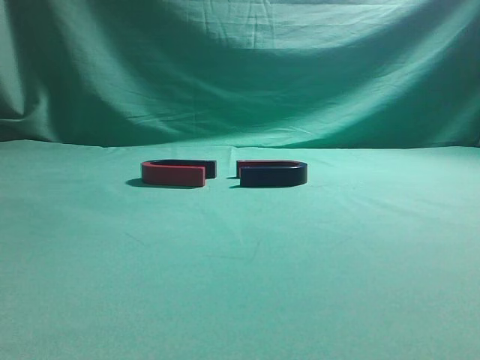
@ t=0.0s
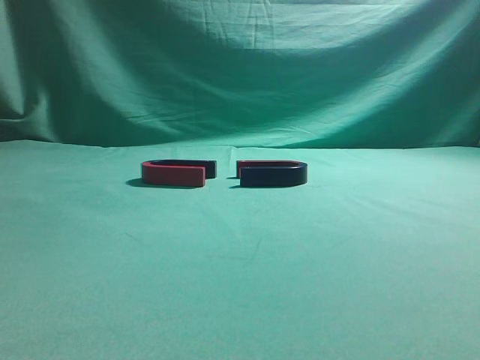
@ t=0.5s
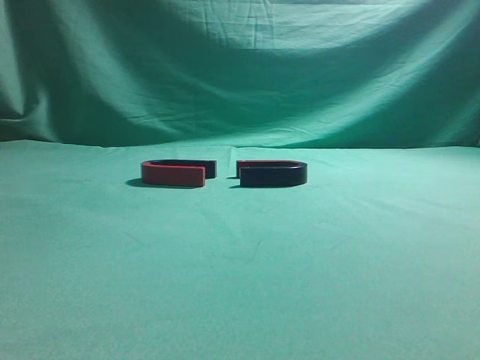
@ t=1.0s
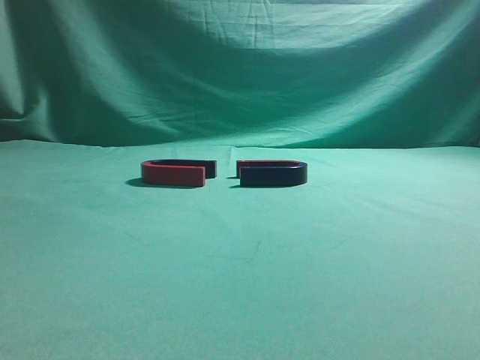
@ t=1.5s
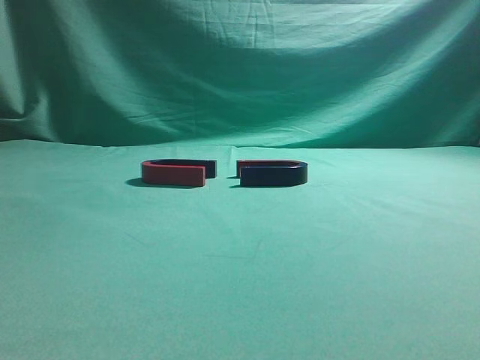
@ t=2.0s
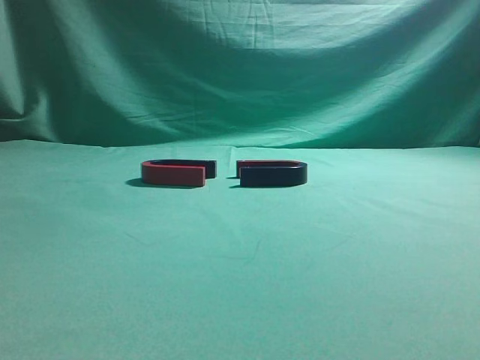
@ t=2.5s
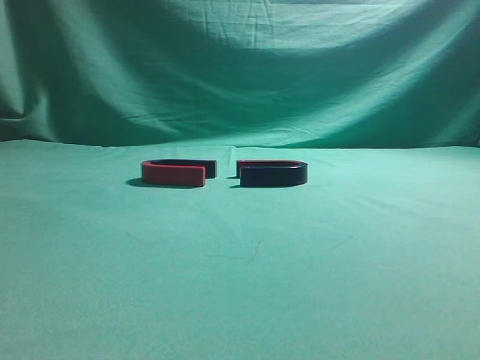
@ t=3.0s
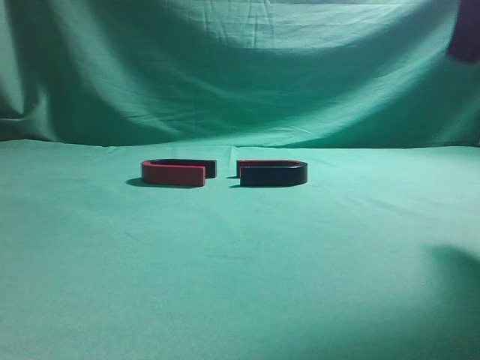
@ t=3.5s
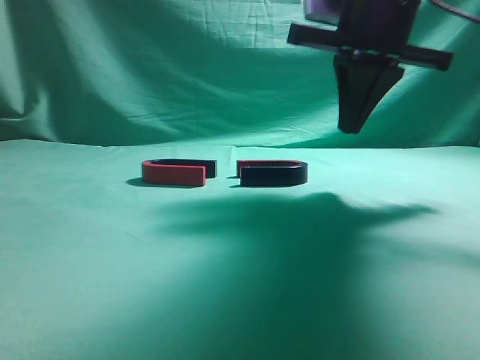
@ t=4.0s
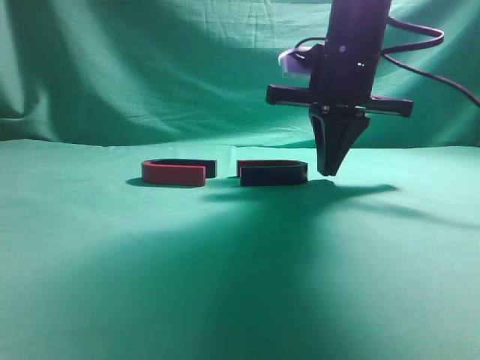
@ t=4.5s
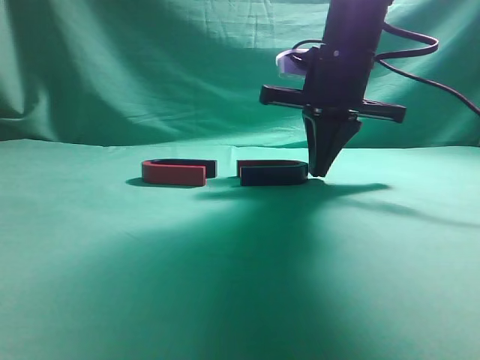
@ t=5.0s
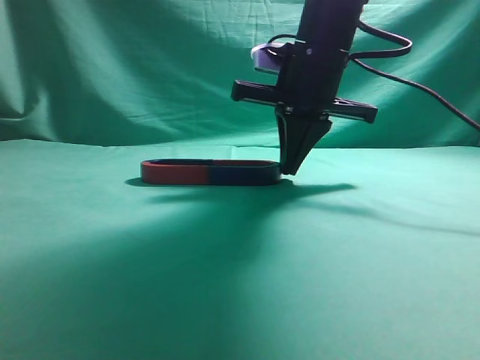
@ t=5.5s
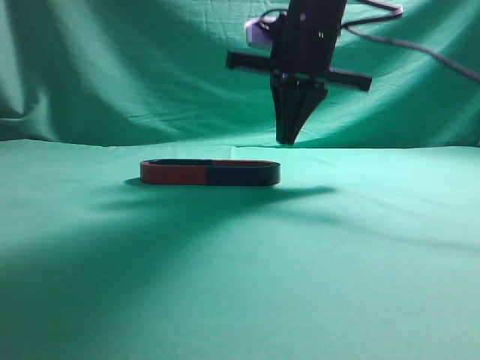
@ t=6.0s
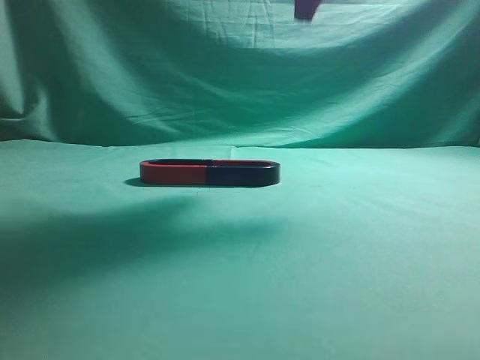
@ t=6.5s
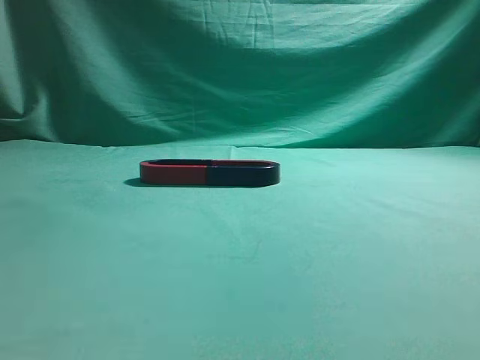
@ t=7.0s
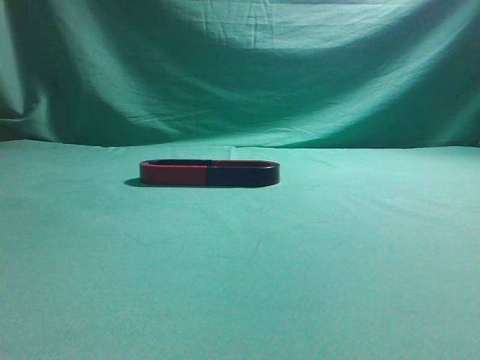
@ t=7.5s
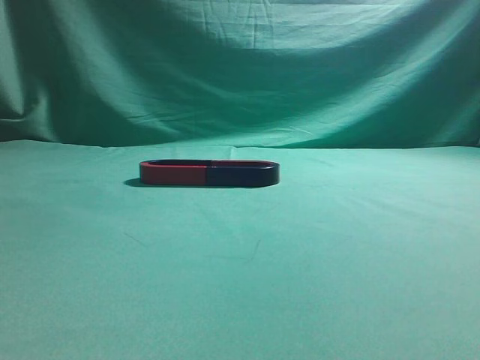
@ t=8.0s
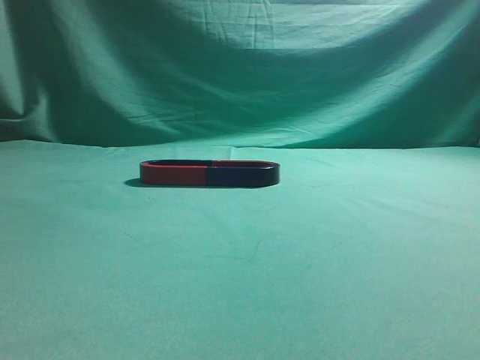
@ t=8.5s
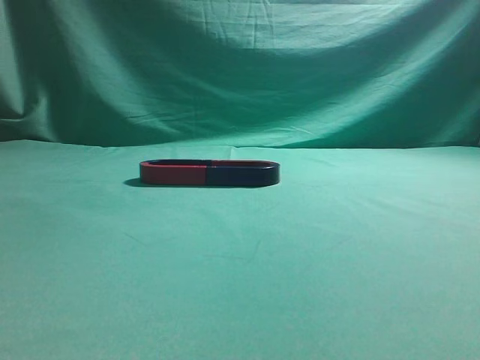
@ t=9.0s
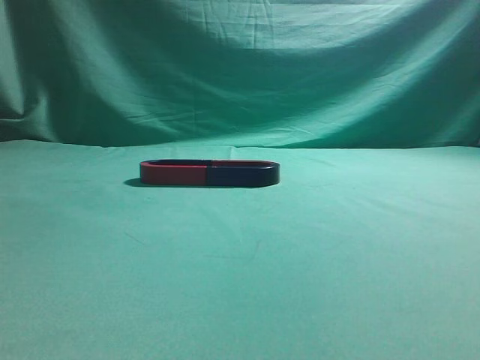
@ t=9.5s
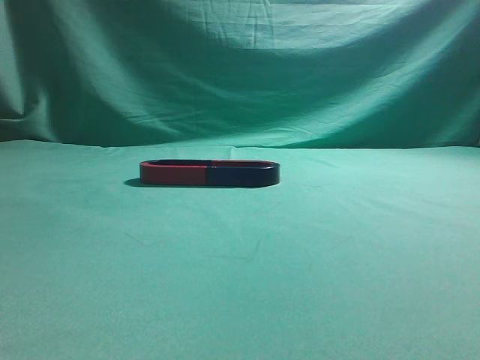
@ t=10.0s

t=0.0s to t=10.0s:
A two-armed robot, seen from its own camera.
Task of the whole recording: push the magnet on the table from its original position to another position.
Step, t=0.0s to t=5.5s: Push the magnet on the right to connect the magnet on the left.
t=2.0s to t=4.0s: The right gripper heads forward and to the left, covering roughly 35 cm.
t=4.0s to t=6.0s: The right gripper heads to the left and forward, covering some 10 cm.
t=6.0s to t=8.0s: The right gripper is displaced backward, to the right and upward by about 50 cm.
